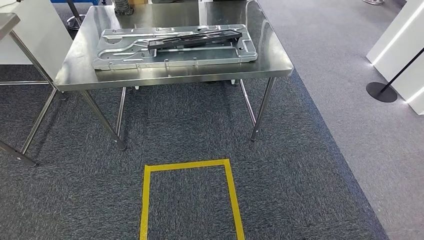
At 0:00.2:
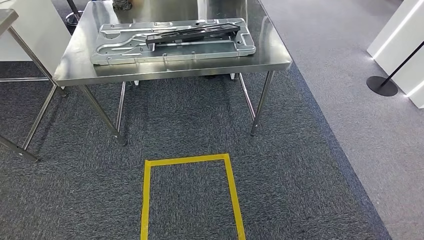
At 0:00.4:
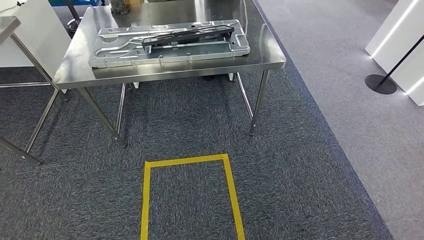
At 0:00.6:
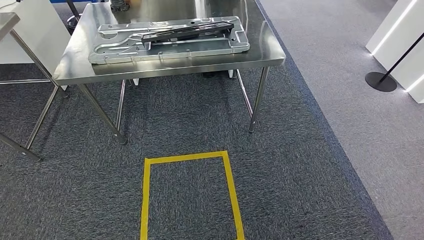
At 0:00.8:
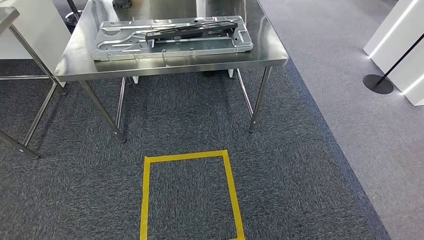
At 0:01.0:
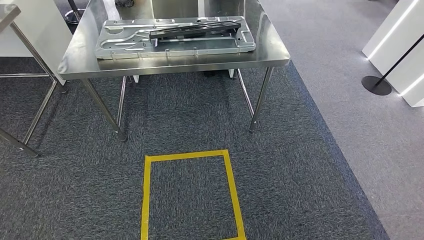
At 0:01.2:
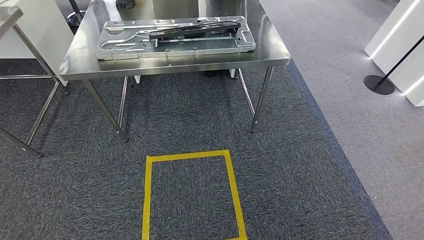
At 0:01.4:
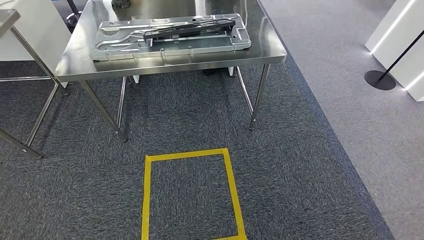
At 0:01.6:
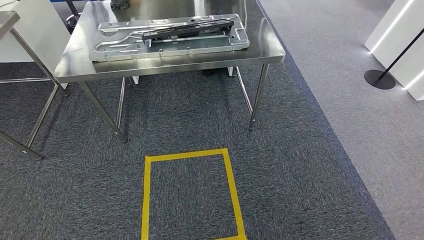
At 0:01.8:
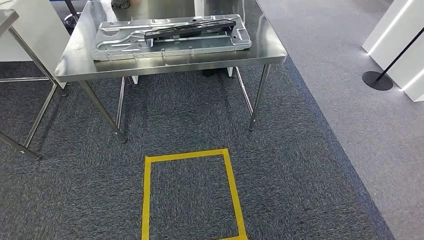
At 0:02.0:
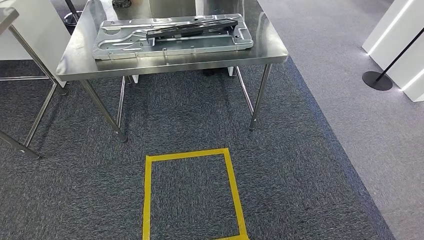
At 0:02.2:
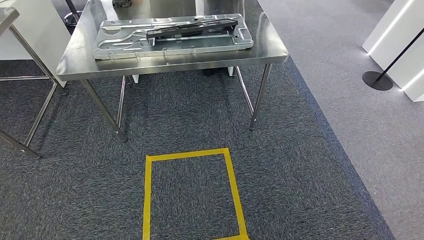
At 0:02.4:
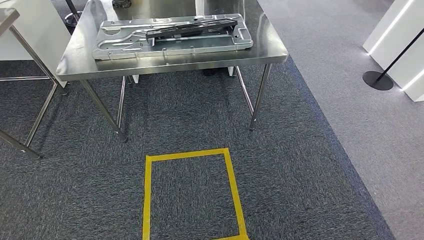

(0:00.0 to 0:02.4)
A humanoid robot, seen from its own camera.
Step, 0:00.0 - 0:02.4: Move to the initial position of the shelf.
0:01.2 - 0:02.4: Both hands stay about where they are.
